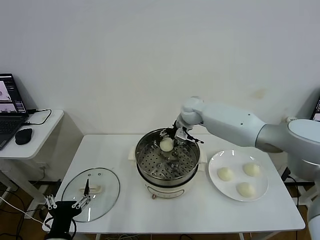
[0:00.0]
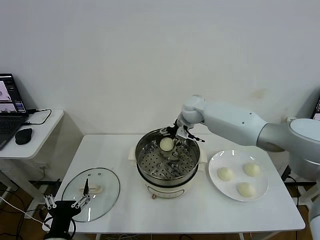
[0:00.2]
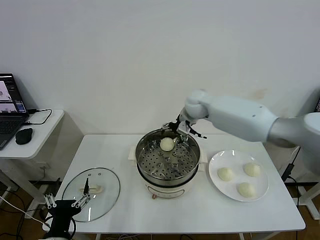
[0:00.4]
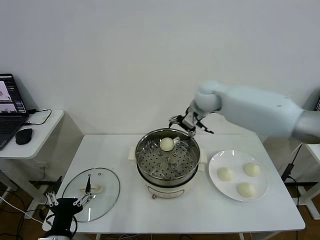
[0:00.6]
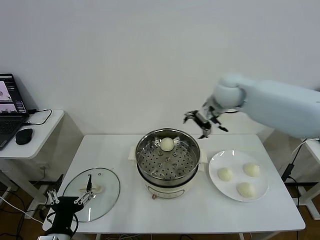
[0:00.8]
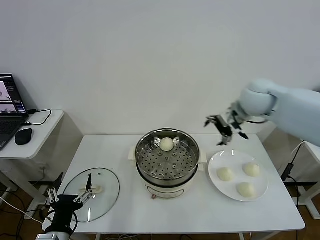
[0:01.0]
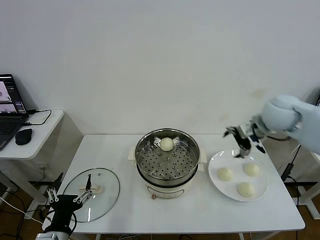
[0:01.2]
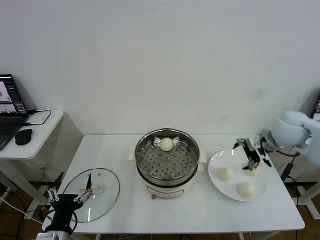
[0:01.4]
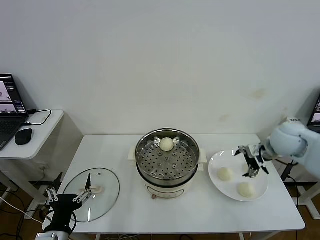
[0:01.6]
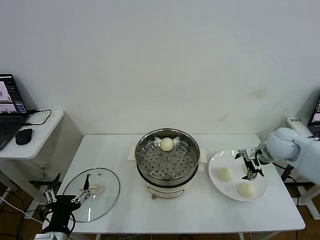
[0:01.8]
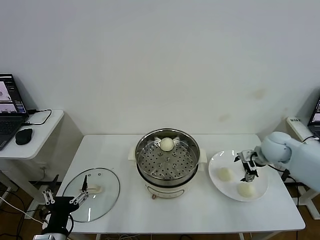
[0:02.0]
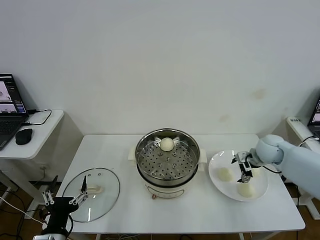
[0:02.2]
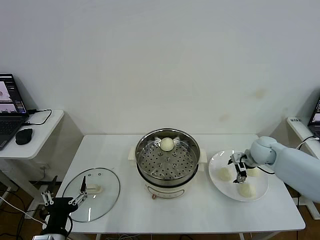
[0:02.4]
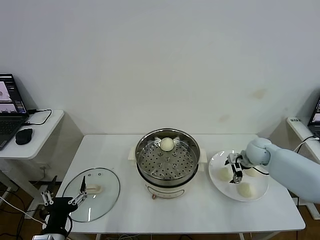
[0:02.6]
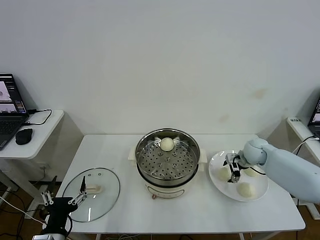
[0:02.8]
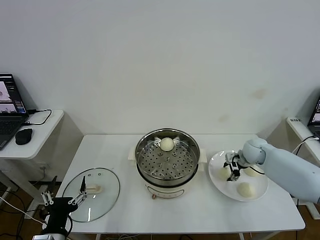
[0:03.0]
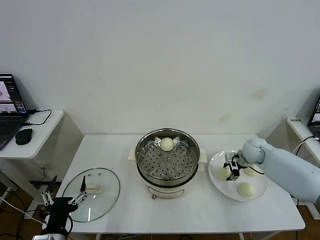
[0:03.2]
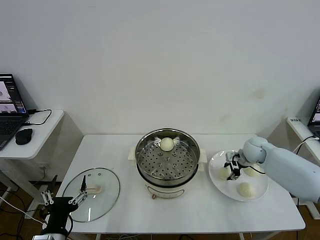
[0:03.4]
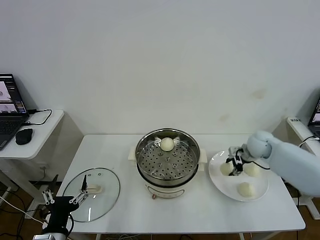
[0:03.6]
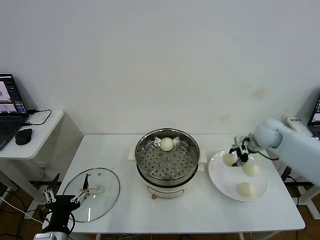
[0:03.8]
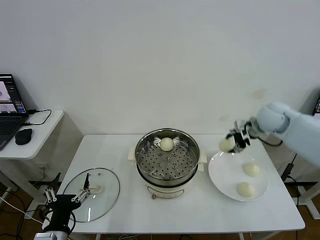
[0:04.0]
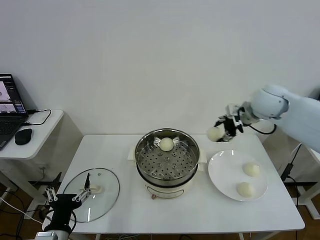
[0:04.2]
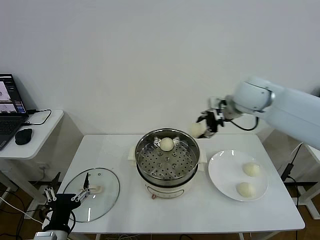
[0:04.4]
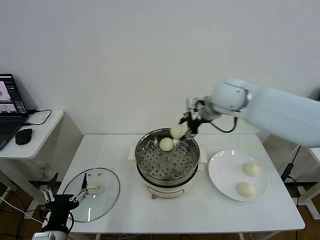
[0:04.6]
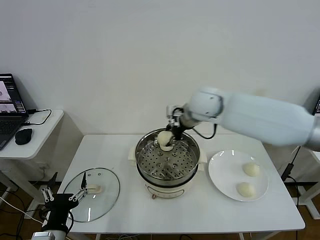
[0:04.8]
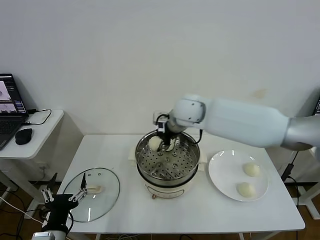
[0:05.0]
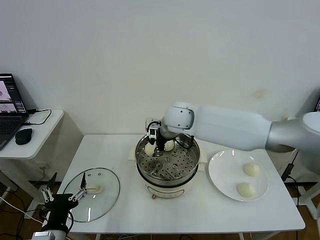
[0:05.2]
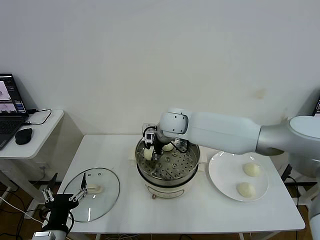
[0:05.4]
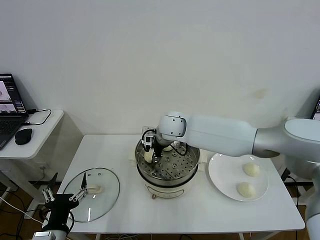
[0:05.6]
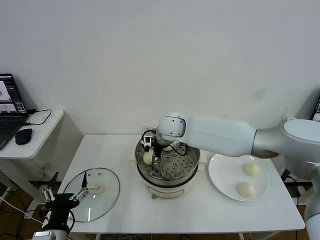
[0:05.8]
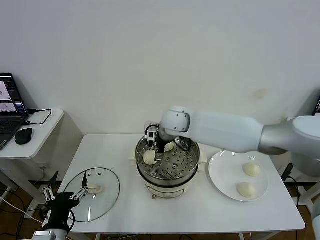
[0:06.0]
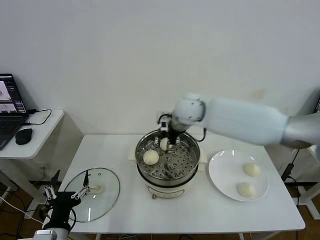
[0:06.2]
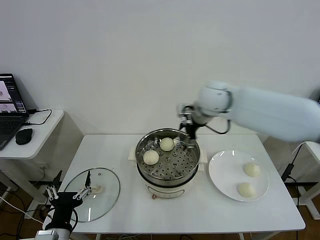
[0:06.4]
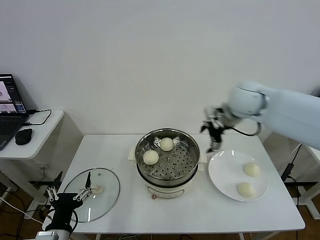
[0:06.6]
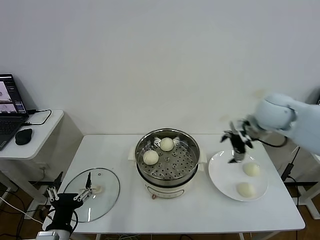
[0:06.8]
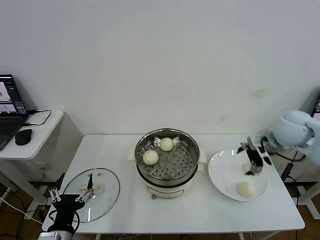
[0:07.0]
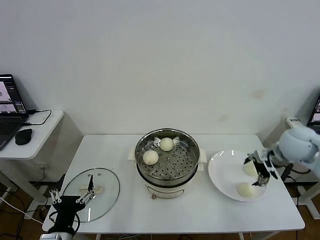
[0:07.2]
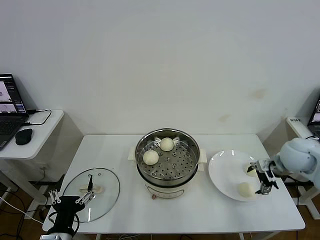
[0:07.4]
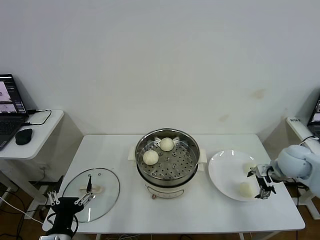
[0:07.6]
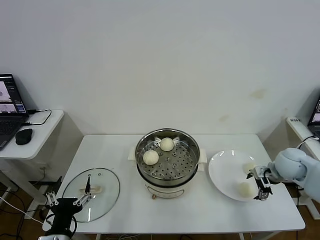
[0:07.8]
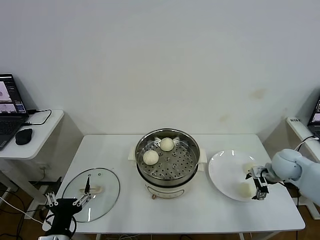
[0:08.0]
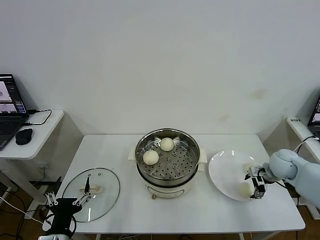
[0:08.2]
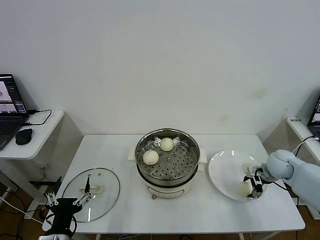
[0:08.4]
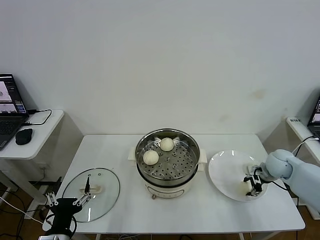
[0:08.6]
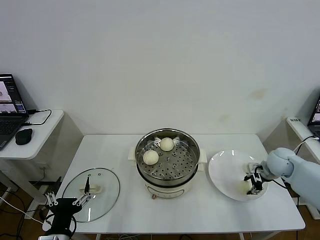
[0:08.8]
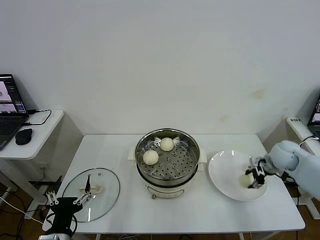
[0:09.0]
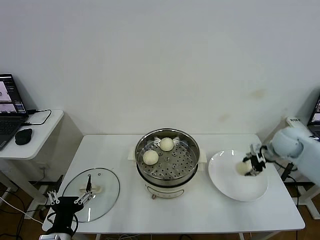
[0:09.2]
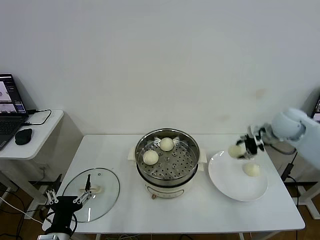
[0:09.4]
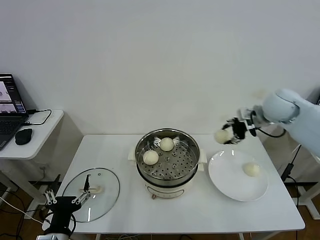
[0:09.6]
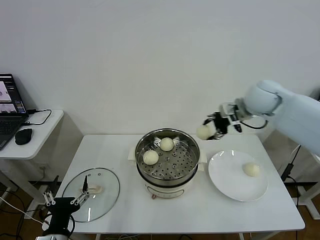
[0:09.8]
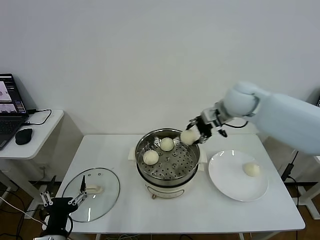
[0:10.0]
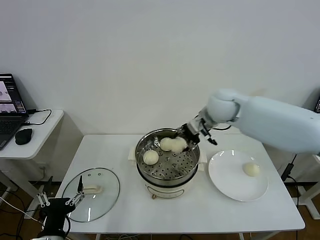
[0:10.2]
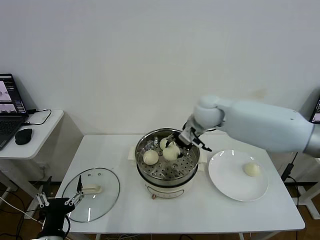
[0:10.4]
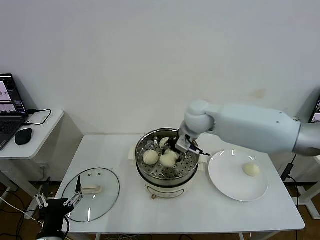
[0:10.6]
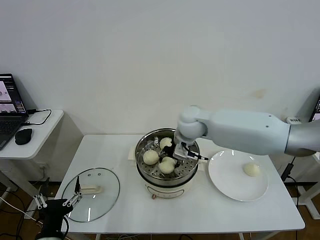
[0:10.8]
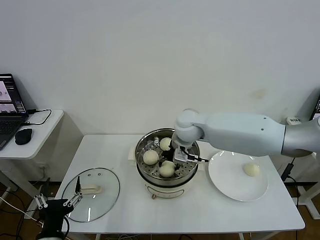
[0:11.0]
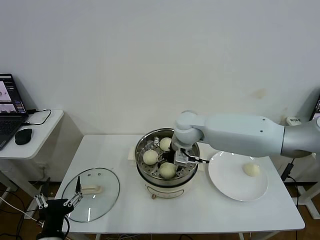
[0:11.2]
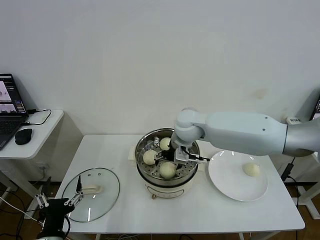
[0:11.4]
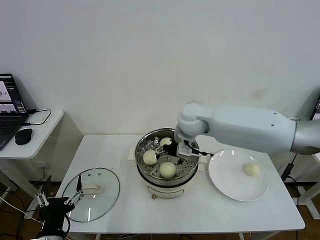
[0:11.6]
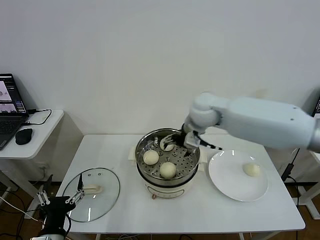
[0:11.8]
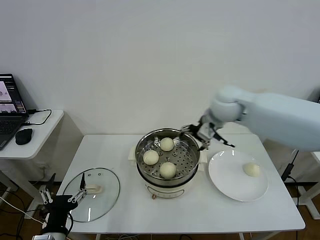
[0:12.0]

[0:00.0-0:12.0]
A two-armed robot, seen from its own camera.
Step, 0.4 to 3.0 s: Grasp the baozi in the plate with right gripper.
Step, 3.2 to 5.8 s: Place the baozi on the steamer with right gripper.
Step, 6.2 to 8.4 s: Grasp the baozi in the plate with right gripper.
Step, 8.6 to 11.4 s: Place the baozi on the steamer with right gripper.
0.0 to 1.6 s: The right gripper shifts some 30 cm to the right and backward.
1.6 to 3.0 s: The right gripper shifts some 15 cm downward and forward, and closes.
3.0 to 4.4 s: The right gripper travels upward and to the left by some 30 cm.
4.4 to 6.0 s: The right gripper moves to the left and downward, approximately 20 cm, and opens its fingers.
6.0 to 7.6 s: The right gripper heads to the right, covering roughly 35 cm.
7.6 to 9.0 s: The right gripper heads forward, covering roughly 5 cm, and closes its fingers.
9.0 to 10.4 s: The right gripper is displaced to the left and upward by about 30 cm.
10.4 to 12.0 s: The right gripper is displaced to the right by some 5 cm, and opens.

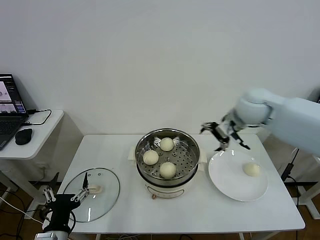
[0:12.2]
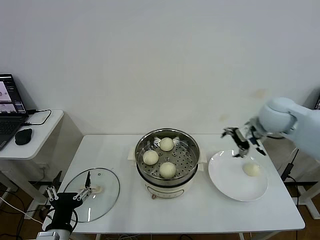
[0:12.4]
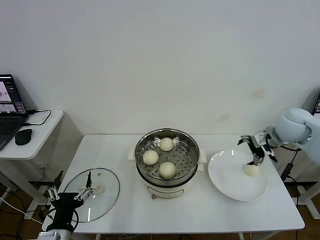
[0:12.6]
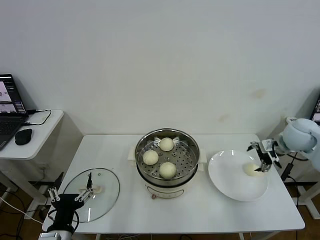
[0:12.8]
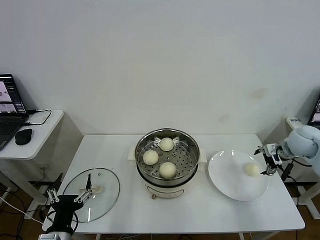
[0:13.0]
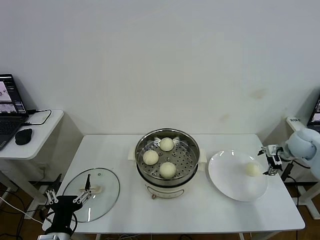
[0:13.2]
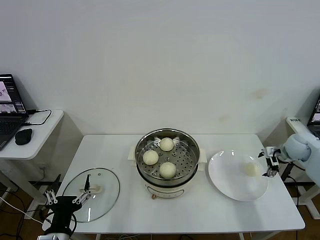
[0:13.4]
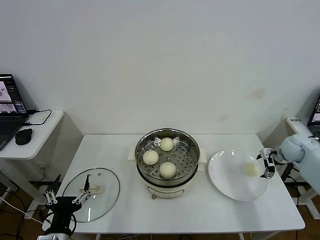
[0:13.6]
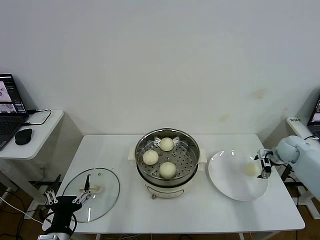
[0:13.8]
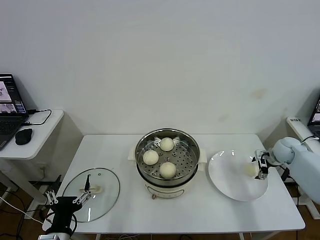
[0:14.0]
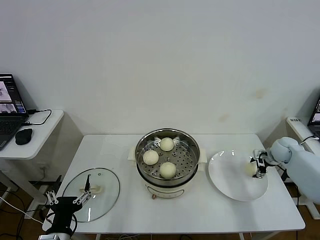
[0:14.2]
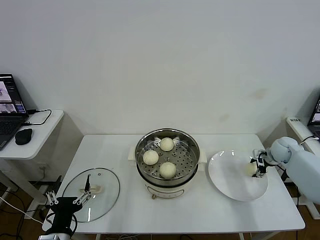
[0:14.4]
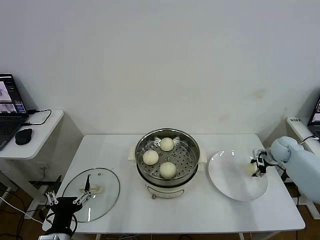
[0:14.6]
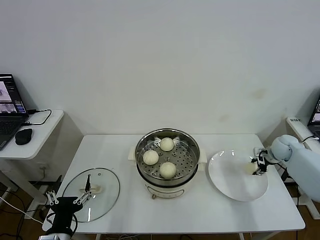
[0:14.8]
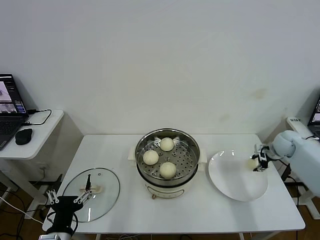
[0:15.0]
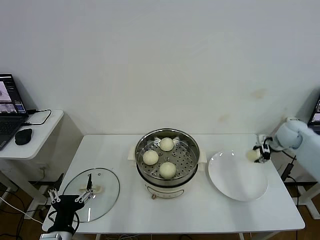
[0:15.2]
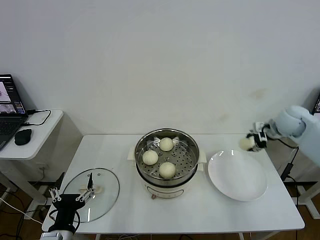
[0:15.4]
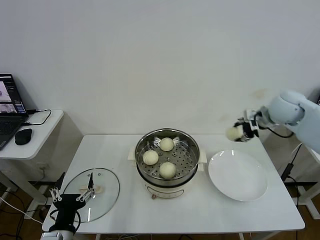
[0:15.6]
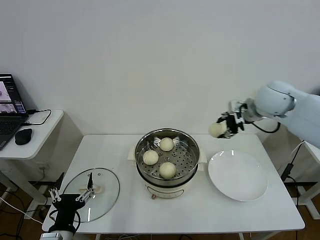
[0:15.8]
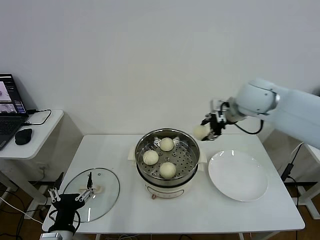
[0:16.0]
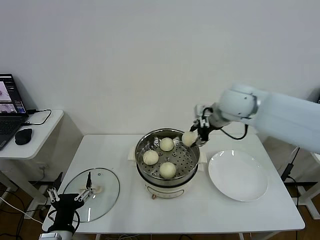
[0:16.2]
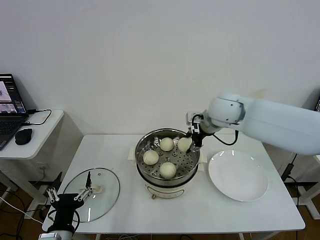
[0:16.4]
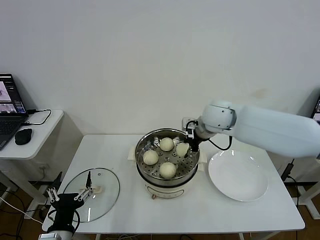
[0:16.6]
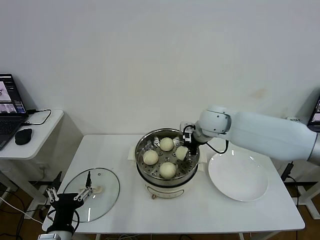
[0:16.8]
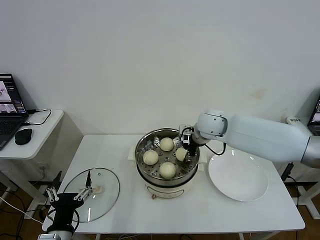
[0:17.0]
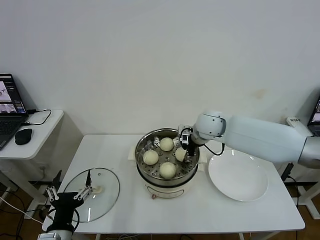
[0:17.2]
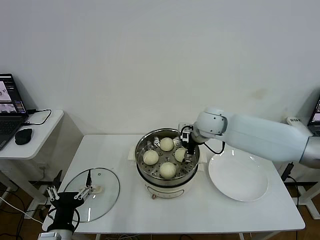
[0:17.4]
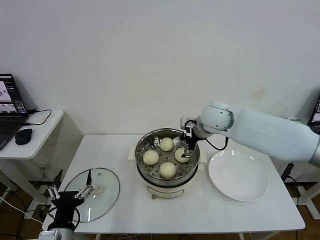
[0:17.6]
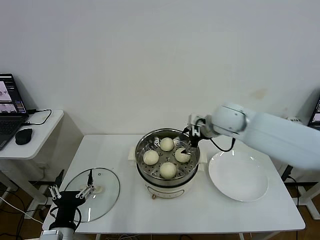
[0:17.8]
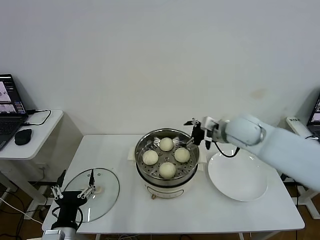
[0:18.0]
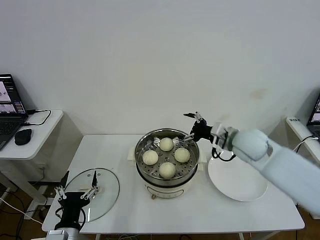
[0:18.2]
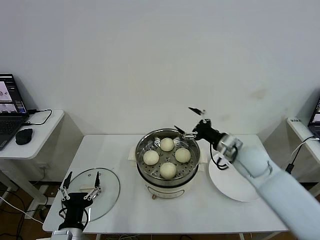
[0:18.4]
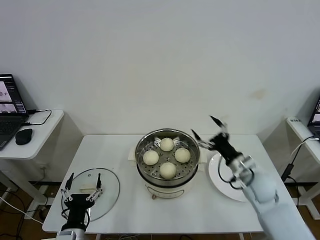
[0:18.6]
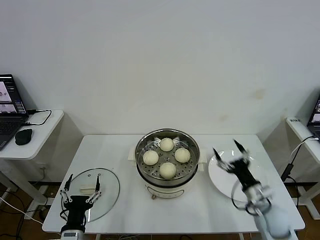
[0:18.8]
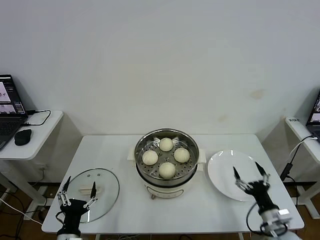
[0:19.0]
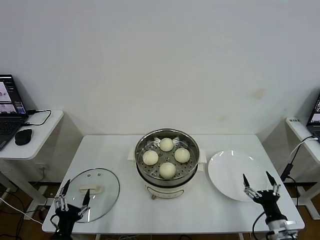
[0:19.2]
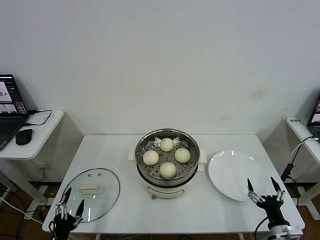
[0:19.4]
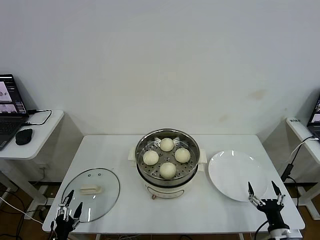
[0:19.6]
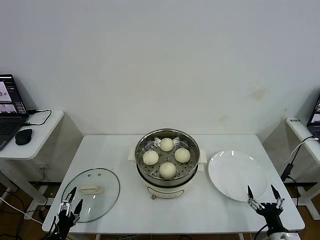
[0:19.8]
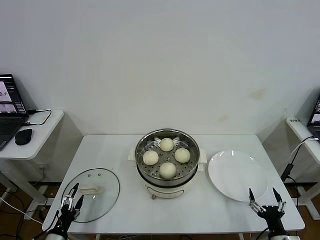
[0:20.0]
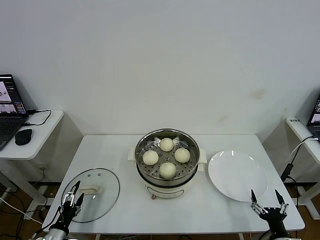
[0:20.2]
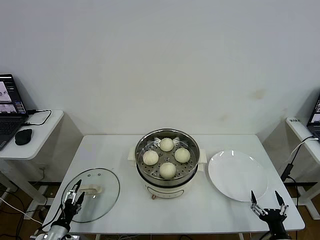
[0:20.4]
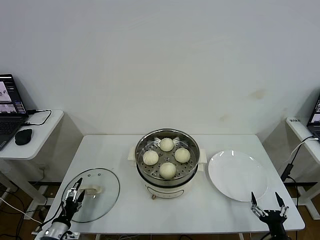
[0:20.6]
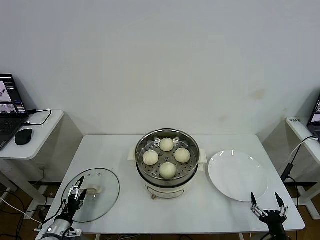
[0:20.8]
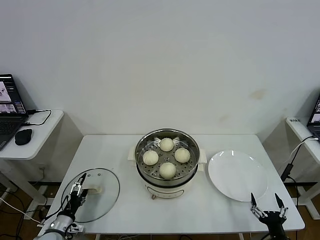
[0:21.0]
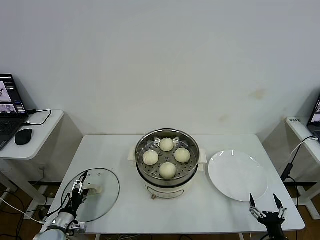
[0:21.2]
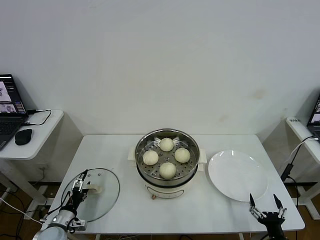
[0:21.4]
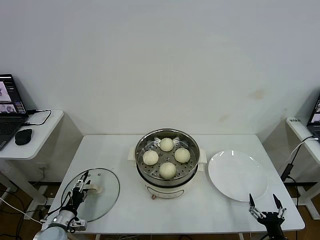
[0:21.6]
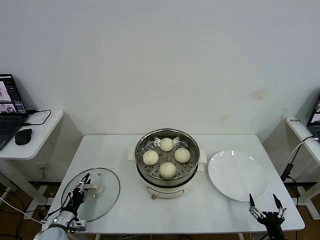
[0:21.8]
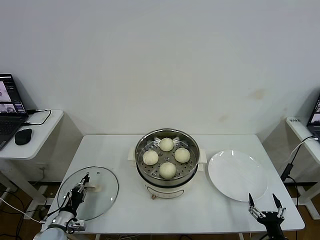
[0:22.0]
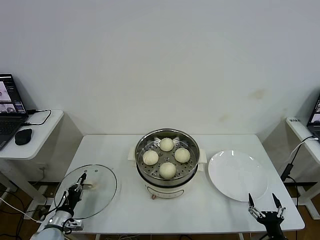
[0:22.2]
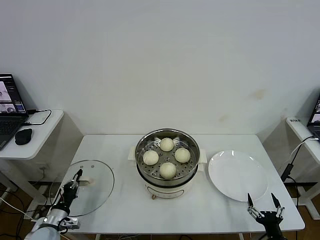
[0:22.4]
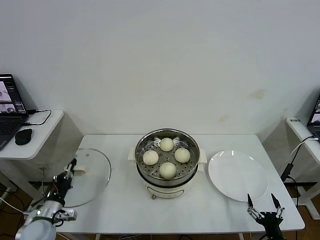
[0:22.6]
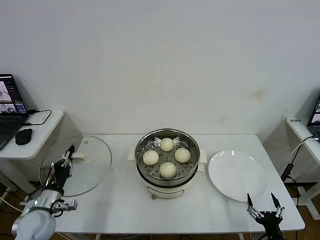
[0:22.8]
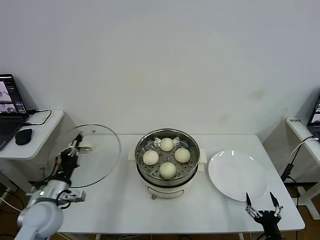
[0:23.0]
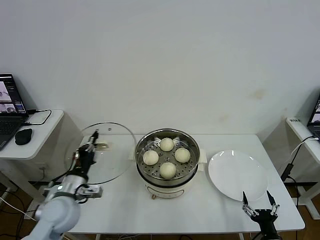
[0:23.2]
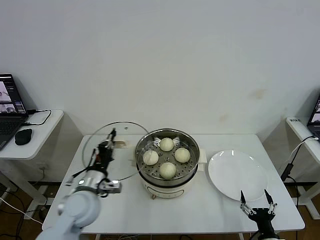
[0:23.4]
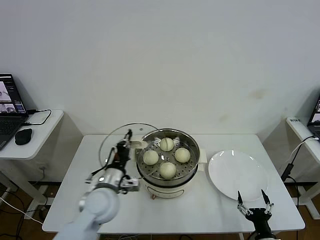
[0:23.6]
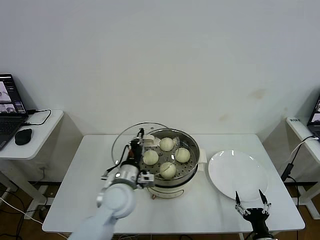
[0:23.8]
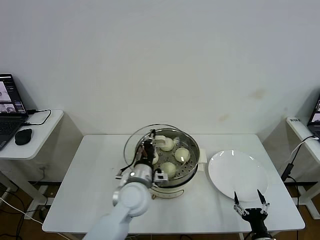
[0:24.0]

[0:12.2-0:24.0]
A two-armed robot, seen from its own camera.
Step, 12.2 to 14.6 s: Grasp the baozi in the plate with right gripper.
Step, 14.8 to 17.4 s: Place the baozi on the steamer with right gripper.
Step, 17.6 to 22.2 s: Grasp the pot lid with left gripper.
12.2 to 13.6 s: The right gripper shifts approximately 30 cm to the right and downward.
13.6 to 15.2 s: The right gripper shifts roughly 5 cm upward, and closes its fingers.
15.2 to 16.6 s: The right gripper is displaced to the left by approximately 30 cm.
16.6 to 18.2 s: The right gripper shifts approximately 10 cm to the right and backward, and opens.
18.2 to 19.6 s: The right gripper shifts some 40 cm backward, downward and to the right. Meanwhile the left gripper shifts roughly 10 cm to the left and downward.
19.6 to 21.0 s: The left gripper heads forward and downward, covering about 15 cm.
21.0 to 22.6 s: The left gripper shifts approximately 5 cm upward, and closes up.
22.6 to 24.0 s: The left gripper is displaced to the right and upward by approximately 35 cm.
